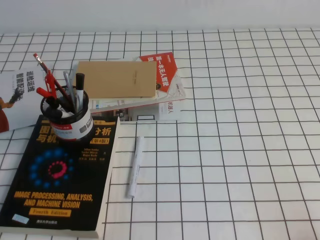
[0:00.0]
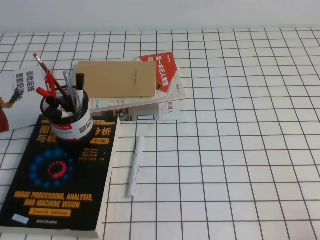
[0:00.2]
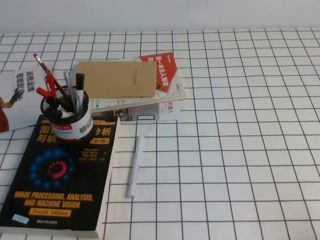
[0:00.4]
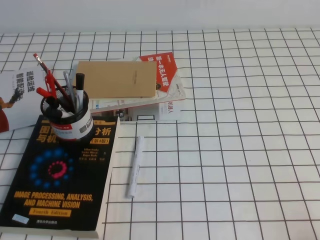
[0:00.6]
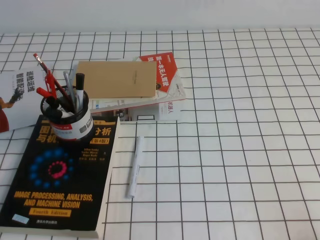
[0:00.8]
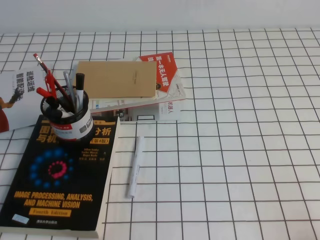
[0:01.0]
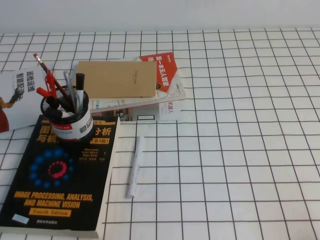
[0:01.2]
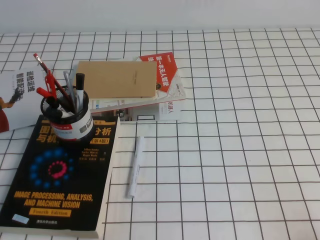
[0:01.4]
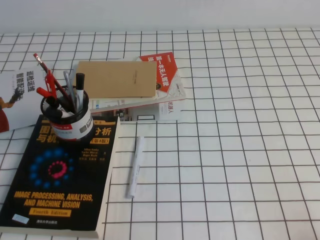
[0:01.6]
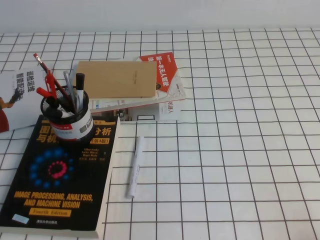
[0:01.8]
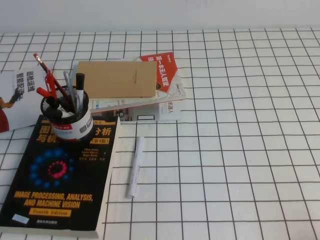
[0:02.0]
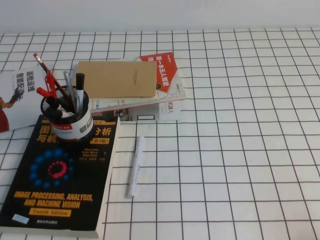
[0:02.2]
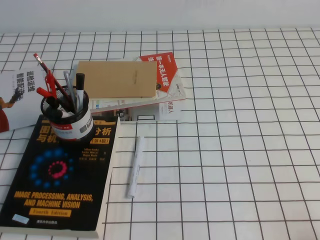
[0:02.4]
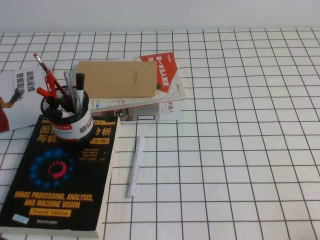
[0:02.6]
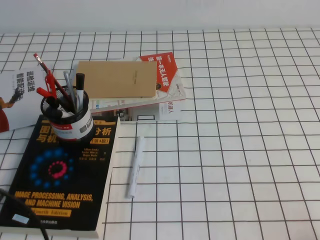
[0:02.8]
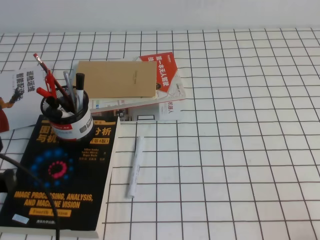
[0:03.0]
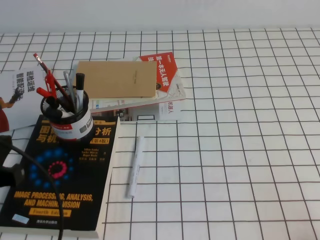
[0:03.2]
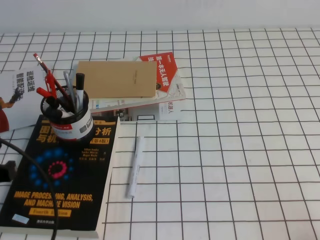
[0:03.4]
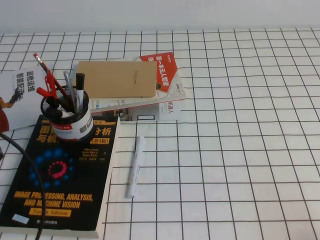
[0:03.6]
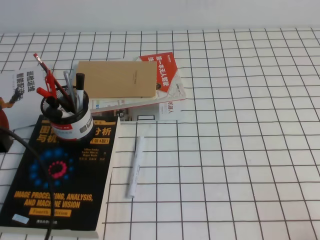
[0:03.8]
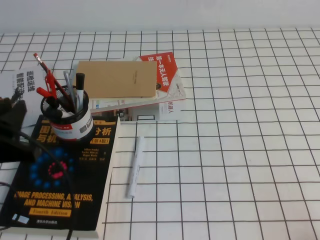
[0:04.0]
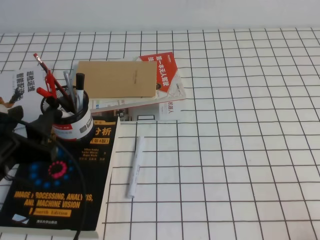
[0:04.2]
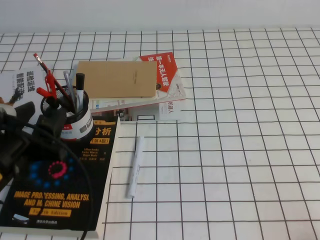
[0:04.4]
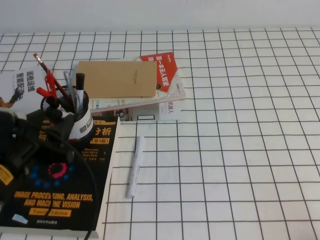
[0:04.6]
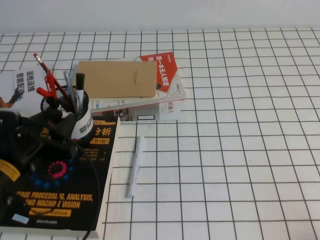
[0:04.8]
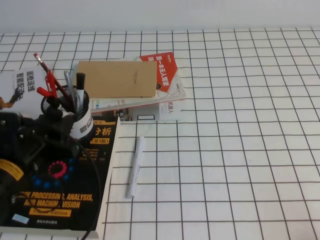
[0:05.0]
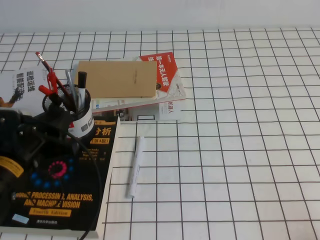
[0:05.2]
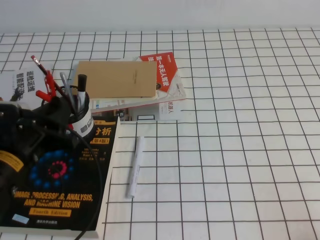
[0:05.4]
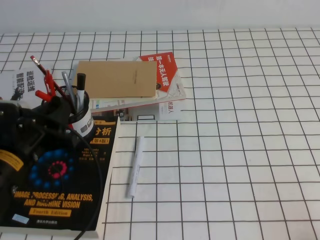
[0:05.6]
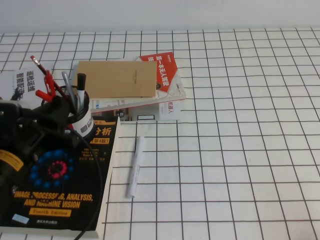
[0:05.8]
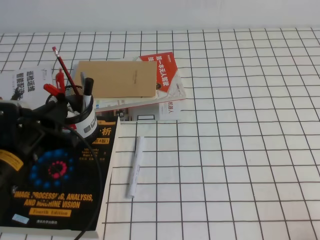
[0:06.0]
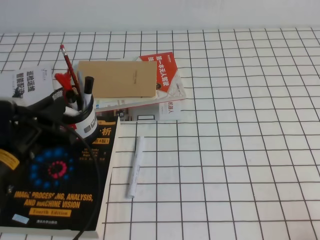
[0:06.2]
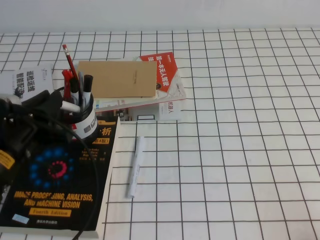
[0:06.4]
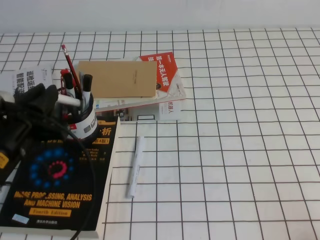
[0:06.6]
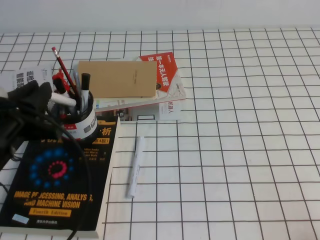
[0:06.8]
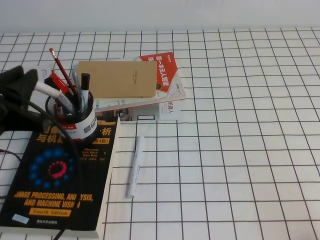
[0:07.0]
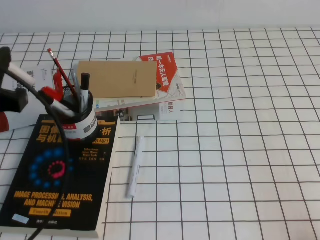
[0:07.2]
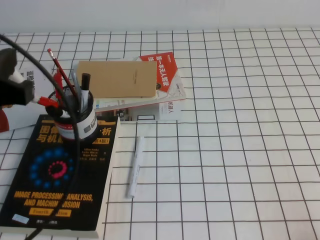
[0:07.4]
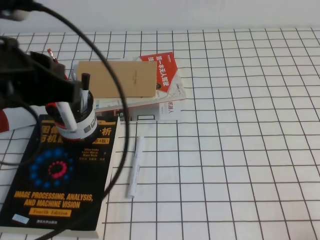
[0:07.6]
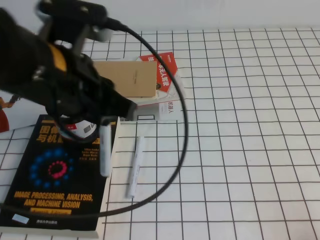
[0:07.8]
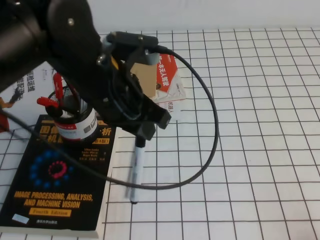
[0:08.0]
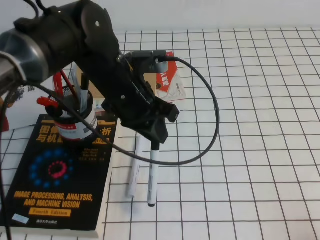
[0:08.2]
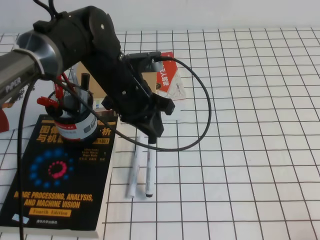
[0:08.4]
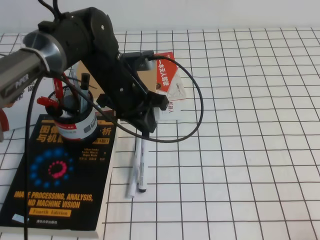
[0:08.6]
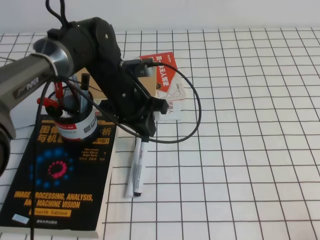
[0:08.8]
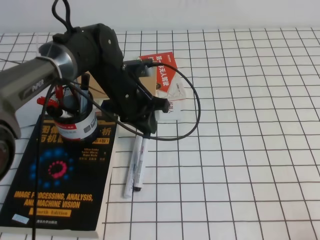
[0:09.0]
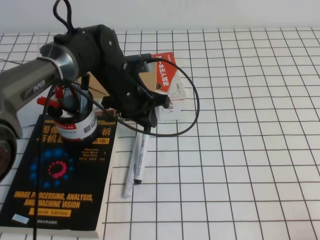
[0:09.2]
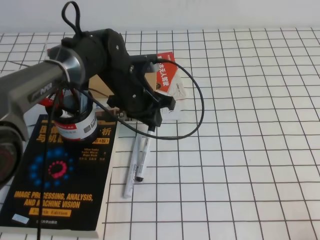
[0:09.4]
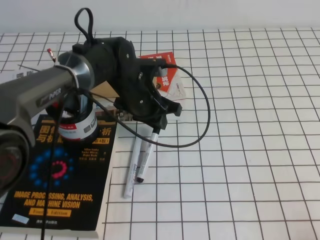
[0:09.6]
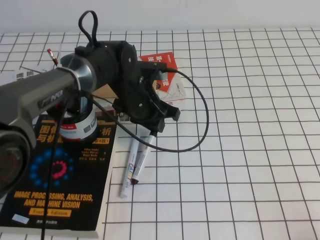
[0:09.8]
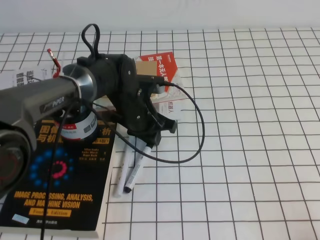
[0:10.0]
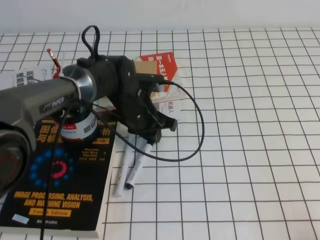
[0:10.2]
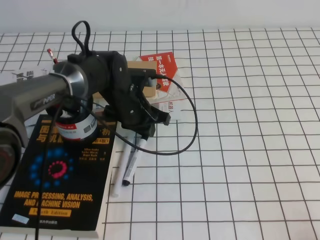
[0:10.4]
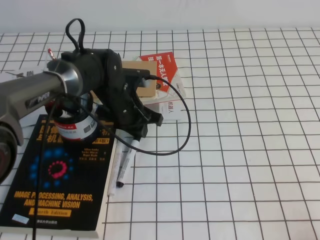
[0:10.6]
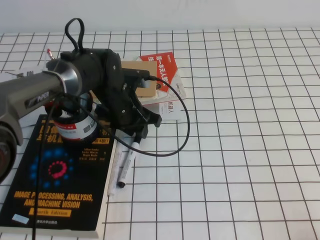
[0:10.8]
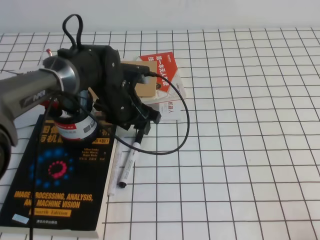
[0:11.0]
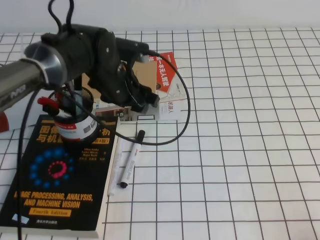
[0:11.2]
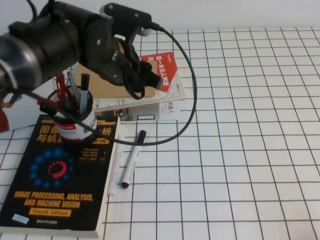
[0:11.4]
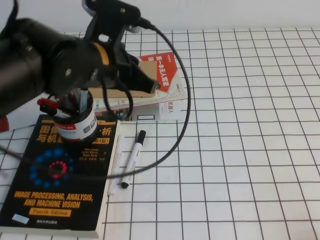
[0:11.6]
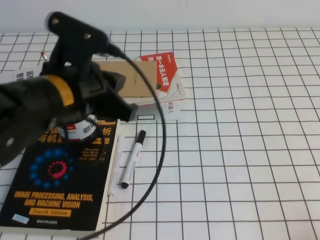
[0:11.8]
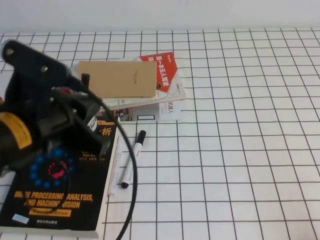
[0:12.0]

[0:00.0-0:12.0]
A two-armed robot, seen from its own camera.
0:01.6 to 0:03.0: The left gripper goes approximately 15 cm upward and forward.
0:03.0 to 0:04.4: The left gripper travels forward by some 10 cm, and opens up.
0:04.4 to 0:06.0: The left gripper moves about 5 cm, and closes its fingers.
0:06.0 to 0:07.6: The left gripper moves upward, about 20 cm.
0:07.6 to 0:09.0: The left gripper is displaced forward, downward and to the right by some 30 cm.
0:09.0 to 0:10.4: The grippers move only a little.
0:10.4 to 0:12.0: The left gripper goes approximately 25 cm backward, upward and to the left, and opens, then closes once more.

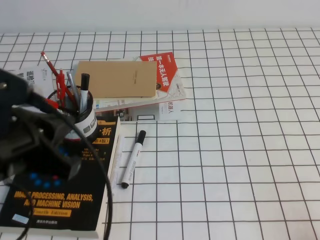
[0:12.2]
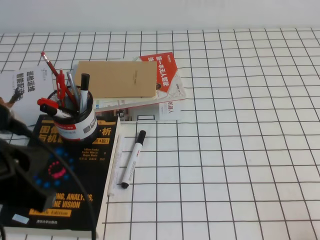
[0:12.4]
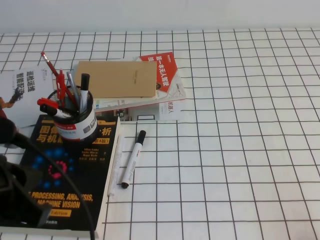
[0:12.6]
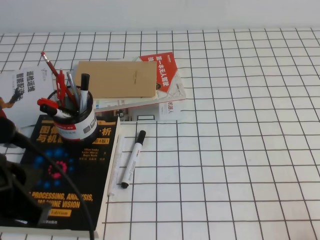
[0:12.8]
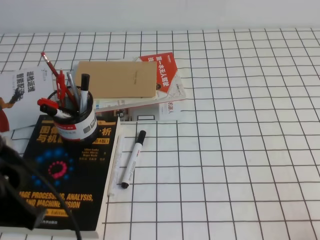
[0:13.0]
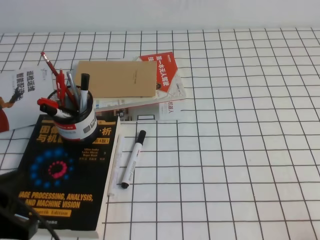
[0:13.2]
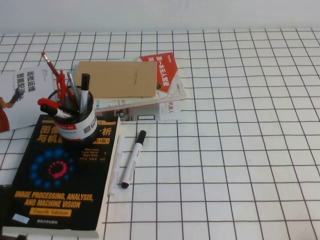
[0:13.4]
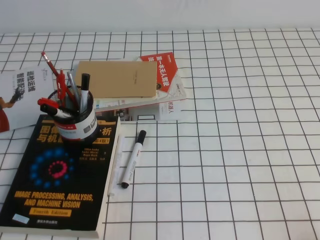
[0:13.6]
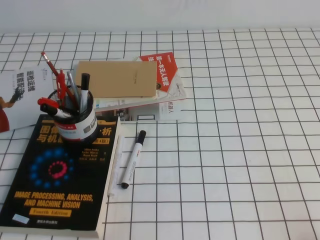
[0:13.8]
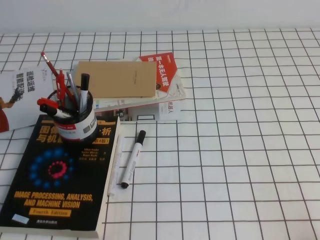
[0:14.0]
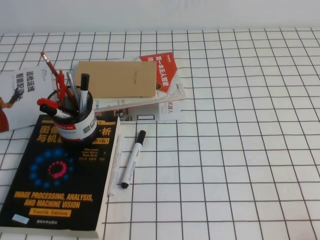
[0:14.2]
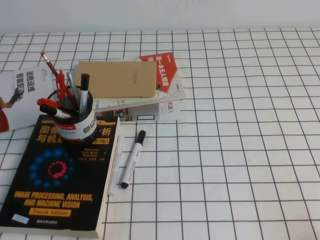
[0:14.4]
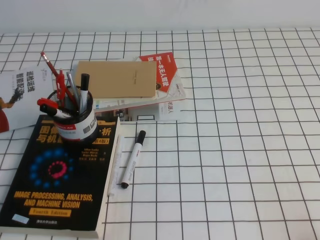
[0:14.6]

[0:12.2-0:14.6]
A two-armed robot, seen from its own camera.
Step, 0:12.2 to 0:14.6: Pick up the pen from the pen holder.
0:12.2 to 0:13.4: The left gripper moves downward, to the left and backward, some 15 cm.
0:13.4 to 0:14.6: The left gripper goes some 5 cm downward.

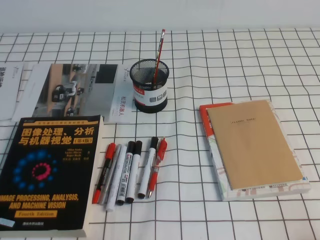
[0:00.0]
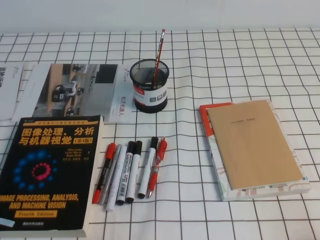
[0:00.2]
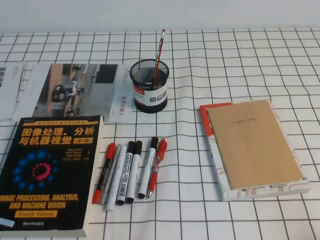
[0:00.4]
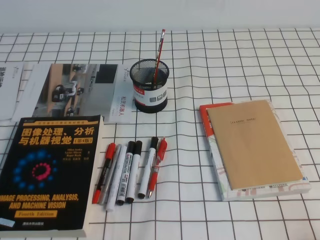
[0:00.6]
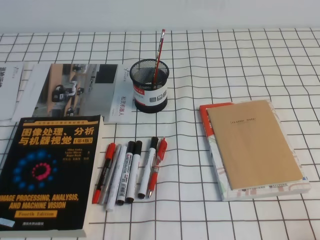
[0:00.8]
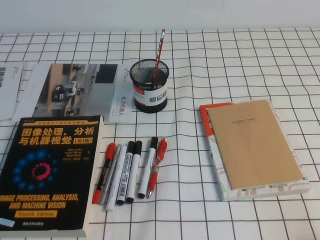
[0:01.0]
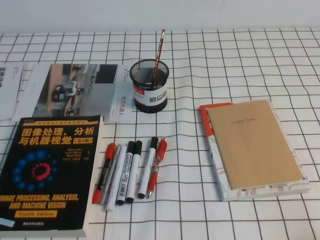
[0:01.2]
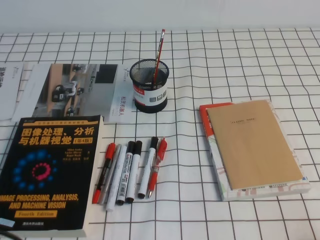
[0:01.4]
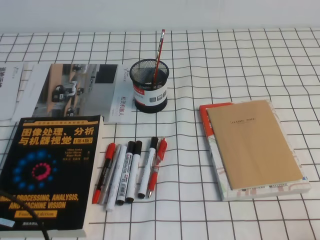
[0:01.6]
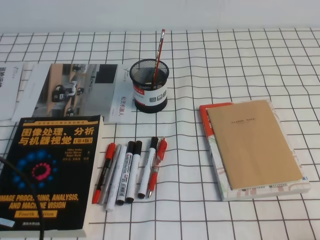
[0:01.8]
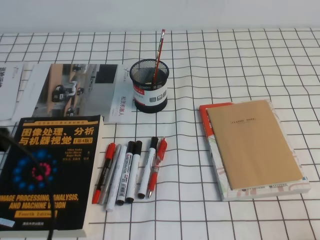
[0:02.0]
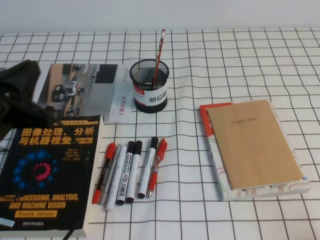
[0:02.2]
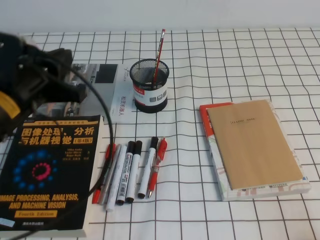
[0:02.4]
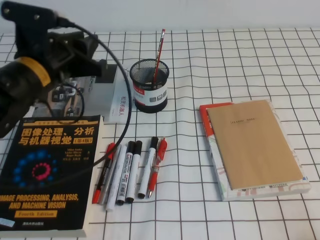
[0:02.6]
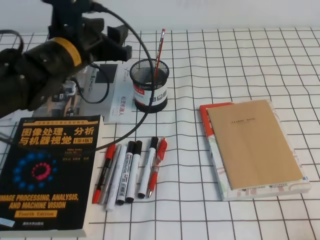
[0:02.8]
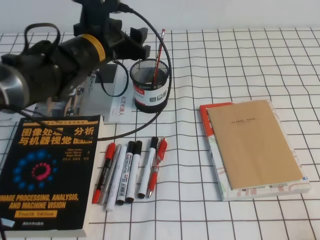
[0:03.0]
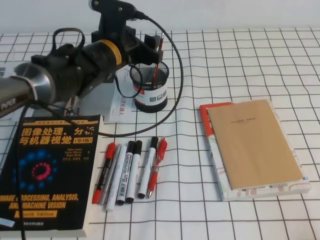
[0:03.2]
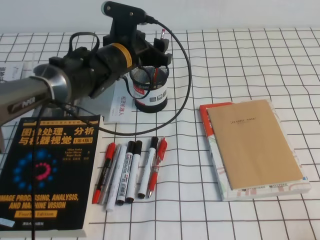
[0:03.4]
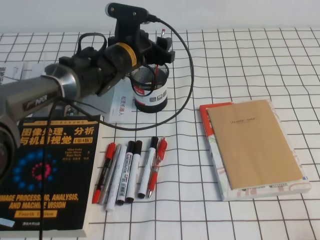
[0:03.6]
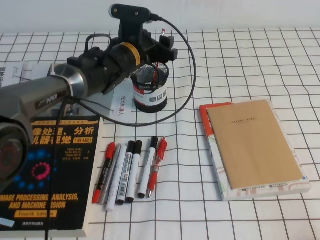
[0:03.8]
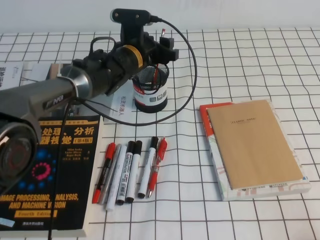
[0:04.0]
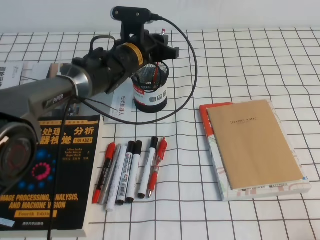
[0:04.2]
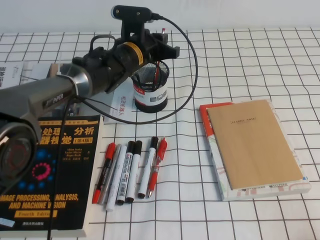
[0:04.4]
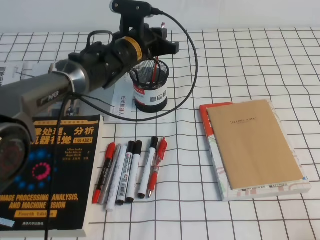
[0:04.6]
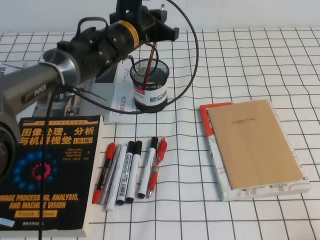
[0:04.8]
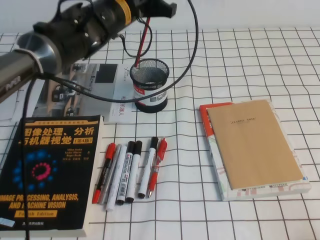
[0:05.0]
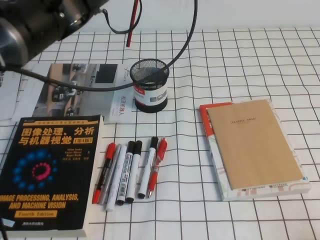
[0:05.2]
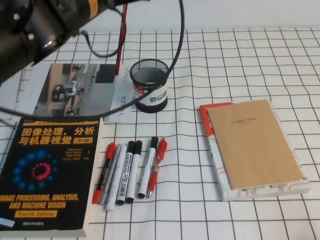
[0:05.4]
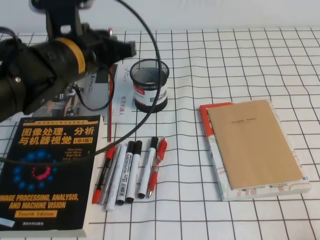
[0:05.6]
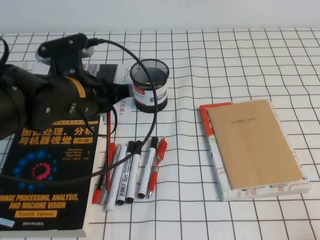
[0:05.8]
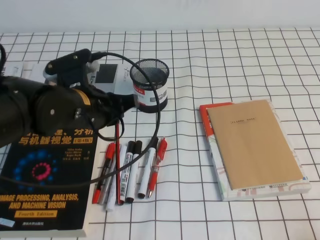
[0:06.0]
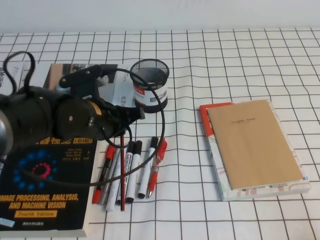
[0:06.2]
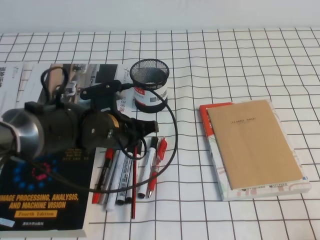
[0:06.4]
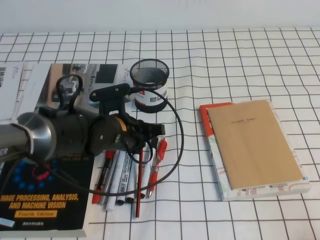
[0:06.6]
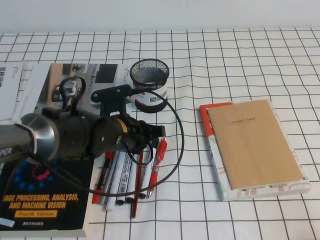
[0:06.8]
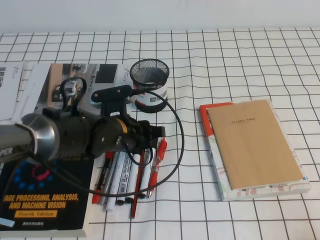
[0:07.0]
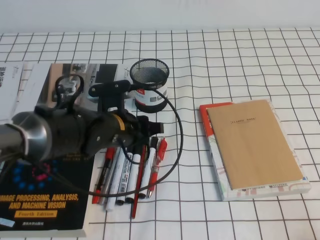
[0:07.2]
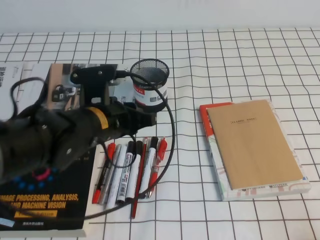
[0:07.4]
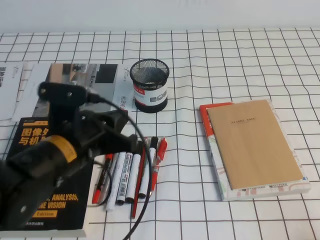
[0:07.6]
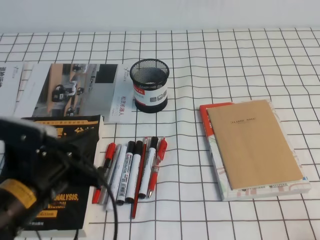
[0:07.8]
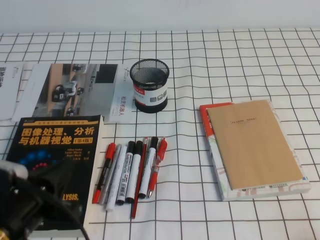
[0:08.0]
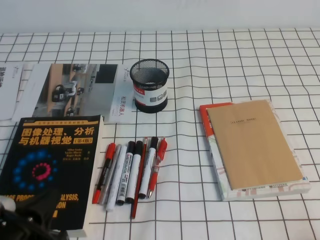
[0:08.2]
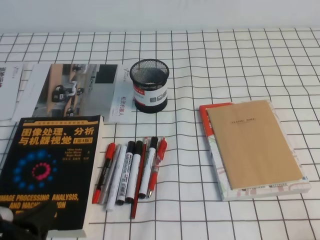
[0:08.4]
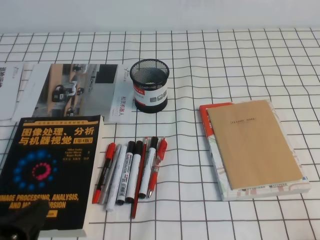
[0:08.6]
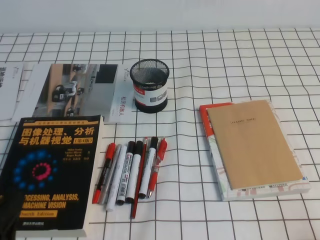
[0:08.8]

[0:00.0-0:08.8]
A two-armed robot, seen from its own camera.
0:01.4 to 0:03.0: The left gripper shifts roughly 35 cm forward and to the right, and opens.
0:03.0 to 0:04.4: The left gripper goes approximately 10 cm forward, to the right and downward, and closes.
0:04.4 to 0:05.8: The left gripper is displaced backward, to the left and upward by roughly 20 cm.
0:05.8 to 0:07.4: The left gripper heads downward, covering roughly 5 cm.
0:07.4 to 0:08.8: The left gripper travels backward and to the left by roughly 25 cm, and closes its fingers.
